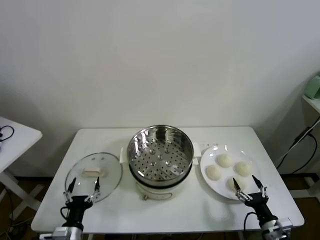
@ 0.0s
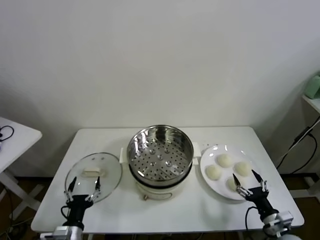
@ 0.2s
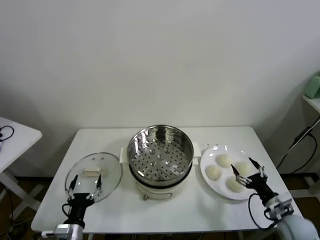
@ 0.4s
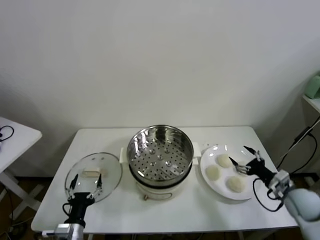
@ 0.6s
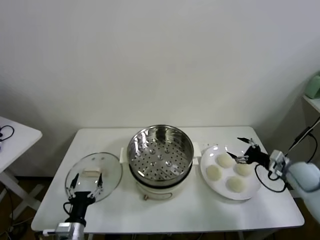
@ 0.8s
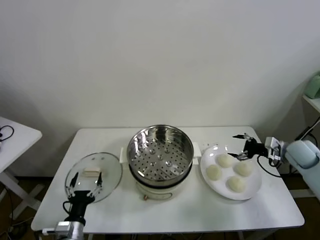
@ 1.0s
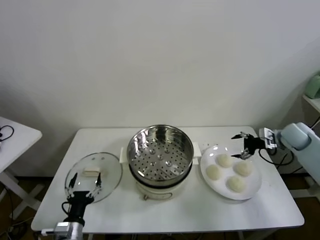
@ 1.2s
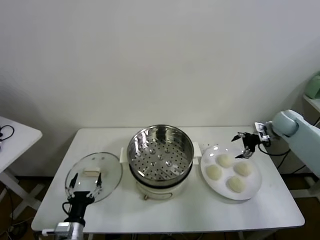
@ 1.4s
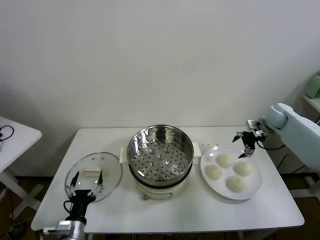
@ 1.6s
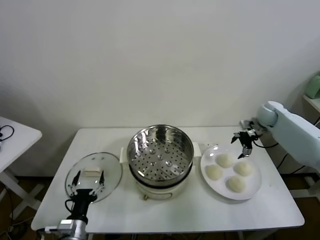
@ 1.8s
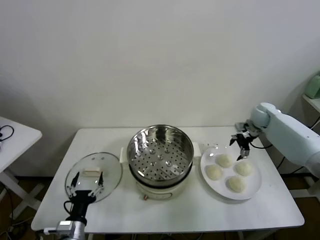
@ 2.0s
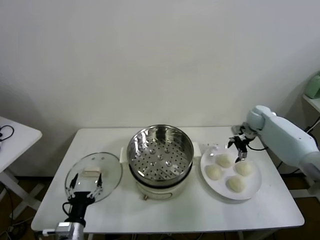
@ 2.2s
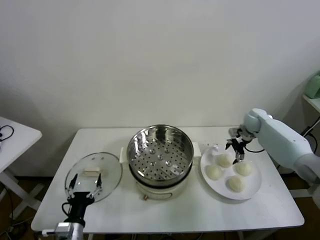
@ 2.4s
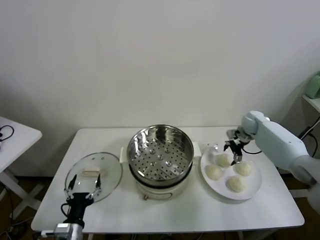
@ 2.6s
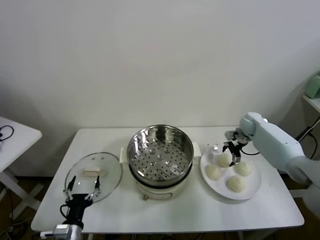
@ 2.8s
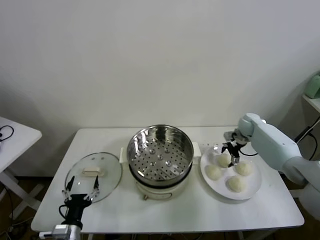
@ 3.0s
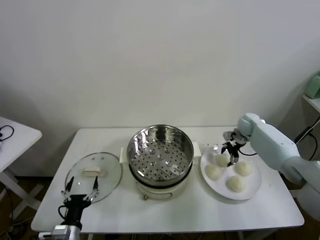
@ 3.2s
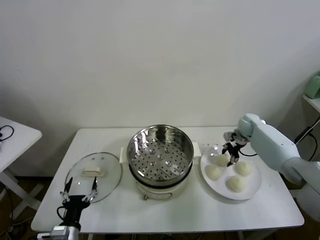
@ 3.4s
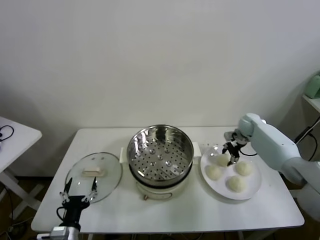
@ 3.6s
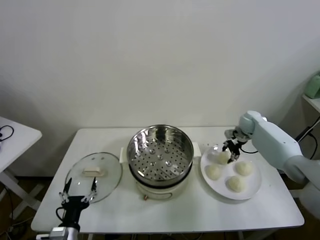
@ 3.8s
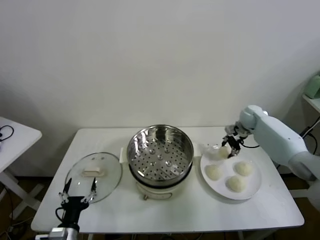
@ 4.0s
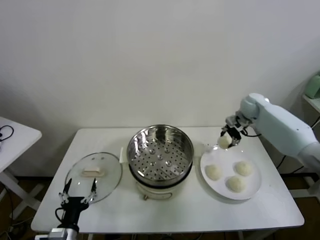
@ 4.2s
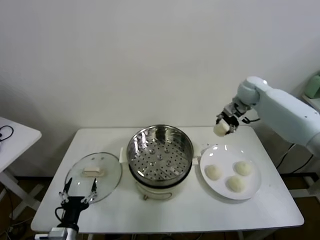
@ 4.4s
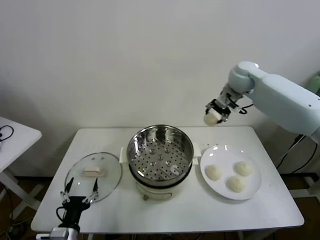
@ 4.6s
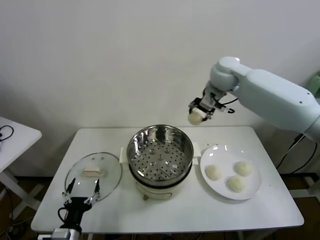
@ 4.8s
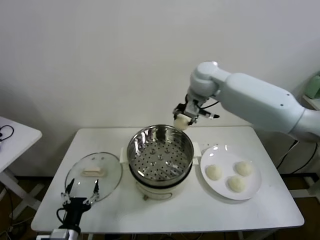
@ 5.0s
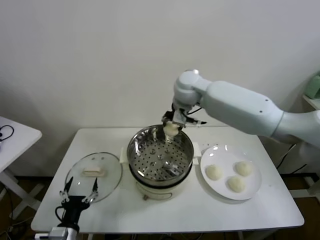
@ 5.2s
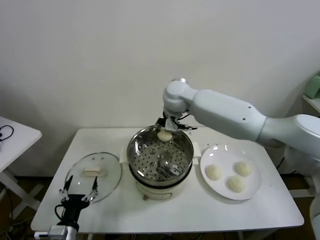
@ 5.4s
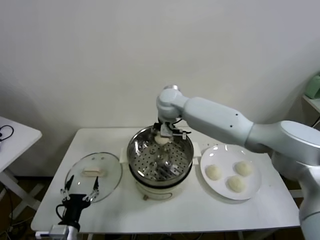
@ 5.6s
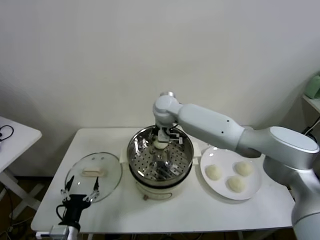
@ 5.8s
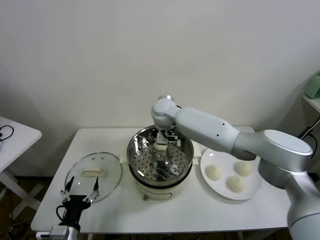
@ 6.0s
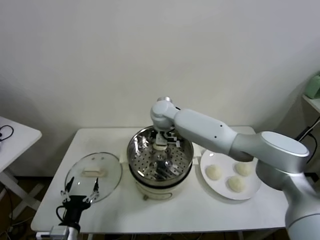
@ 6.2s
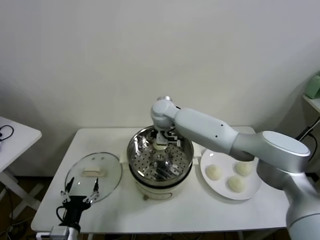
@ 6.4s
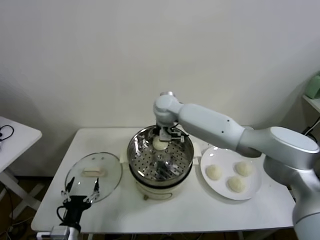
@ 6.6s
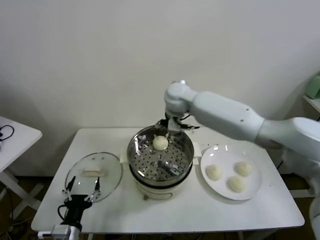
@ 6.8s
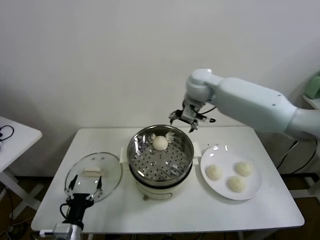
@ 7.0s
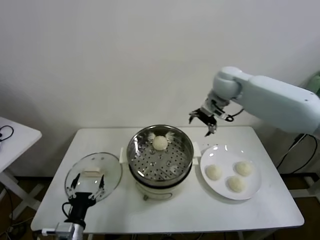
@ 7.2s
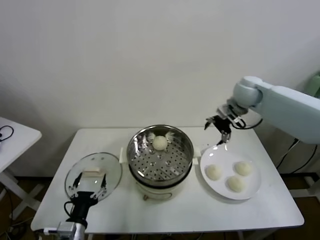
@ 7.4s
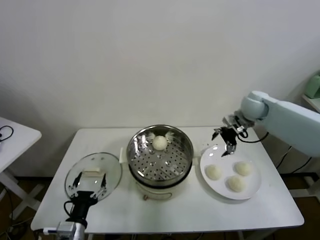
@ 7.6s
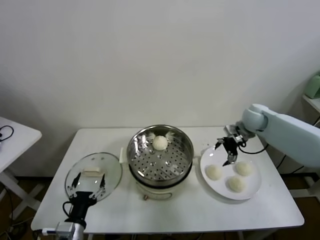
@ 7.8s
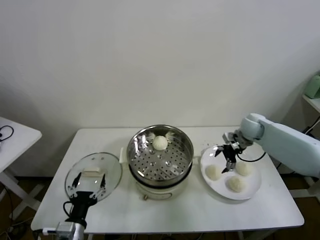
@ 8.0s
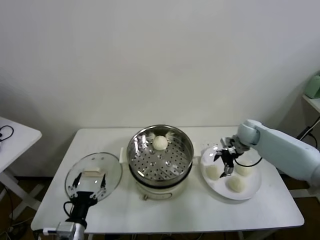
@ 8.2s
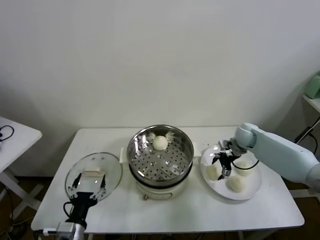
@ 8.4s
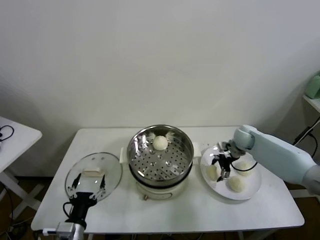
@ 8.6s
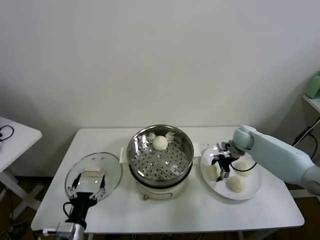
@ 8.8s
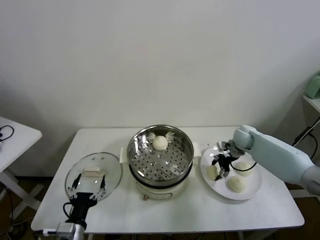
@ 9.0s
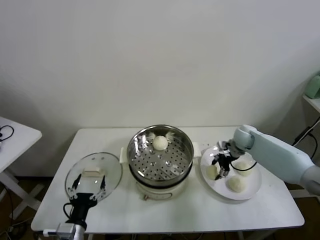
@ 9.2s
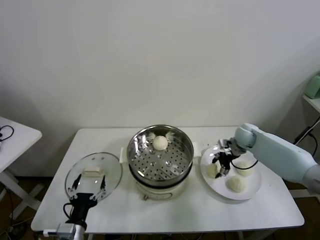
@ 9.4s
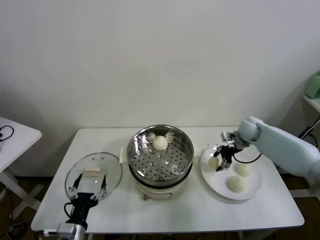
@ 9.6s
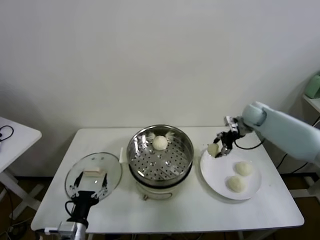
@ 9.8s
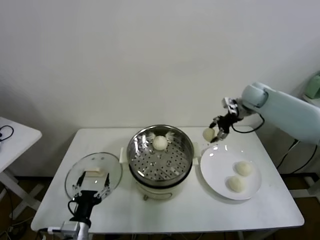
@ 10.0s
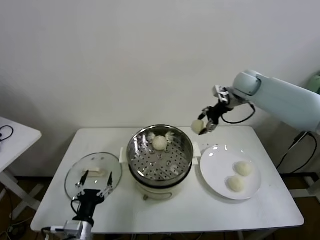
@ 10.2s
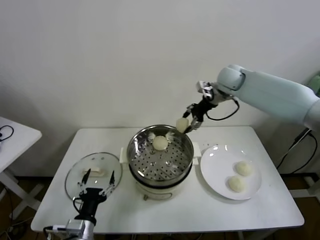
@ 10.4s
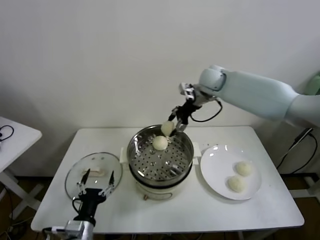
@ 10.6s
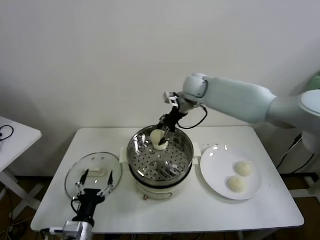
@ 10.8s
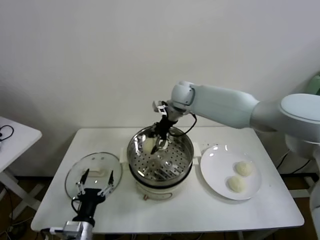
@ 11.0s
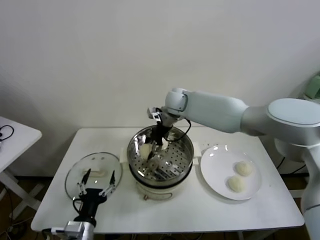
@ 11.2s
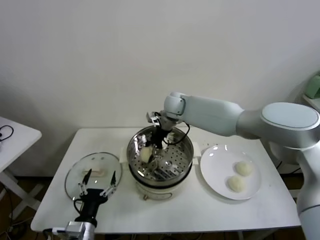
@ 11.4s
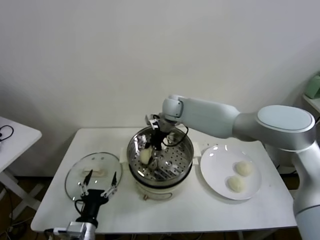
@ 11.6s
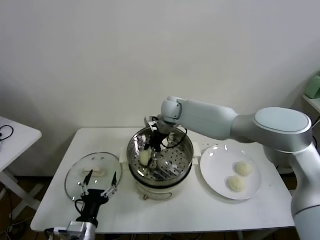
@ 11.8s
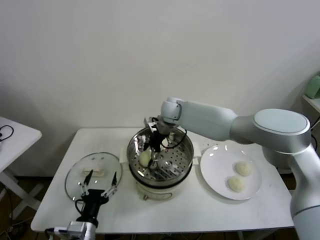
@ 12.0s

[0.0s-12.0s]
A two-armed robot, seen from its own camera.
Task of the whole recording: take steamed baozi put them in steamer.
Step, 0.0s to 3.2s: Grasp the baozi in the plate with right gripper.
Step, 3.4s to 6.2s: Place the baozi on the steamer with right gripper.
Step, 6.6s to 8.8s: Grasp the baozi in the plate with right gripper.
1.6s to 3.0s: The right gripper shifts roughly 10 cm downward and to the left.
3.0s to 4.4s: The right gripper shifts approximately 20 cm upward, and closes up.
4.4s to 6.0s: The right gripper is displaced to the left by approximately 30 cm.
6.0s to 7.6s: The right gripper moves to the right, roughly 35 cm, and opens.
7.6s to 9.0s: The right gripper heads downward, covering roughly 15 cm, and closes its fingers.
9.0s to 10.4s: The right gripper heads upward and to the left, covering about 25 cm.
10.4s to 12.0s: The right gripper shifts about 20 cm to the left and downward, and opens.

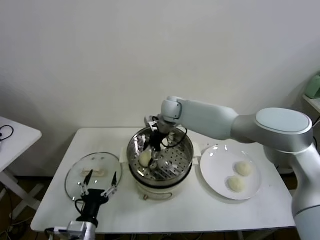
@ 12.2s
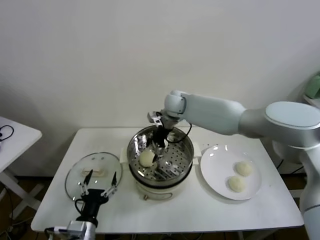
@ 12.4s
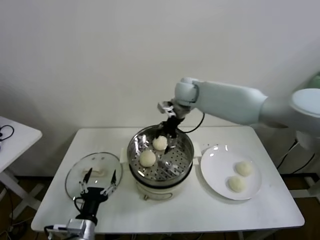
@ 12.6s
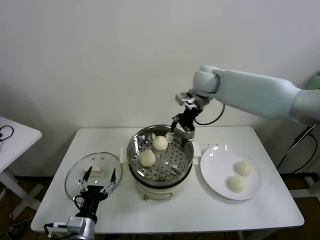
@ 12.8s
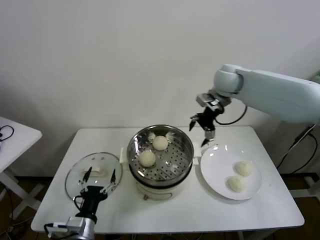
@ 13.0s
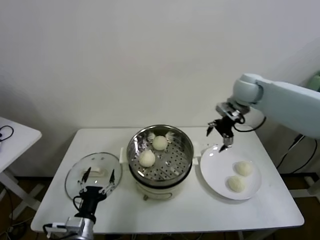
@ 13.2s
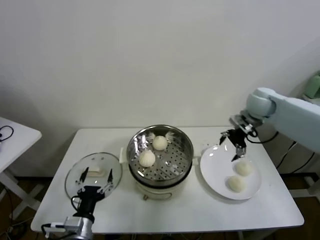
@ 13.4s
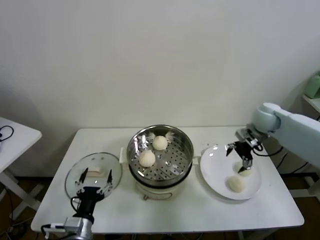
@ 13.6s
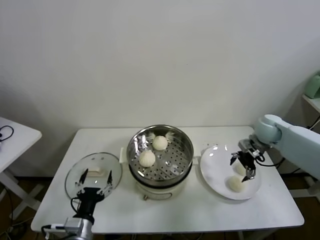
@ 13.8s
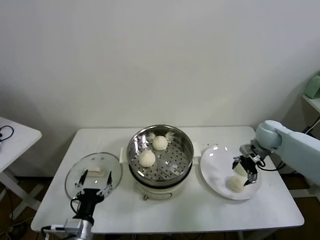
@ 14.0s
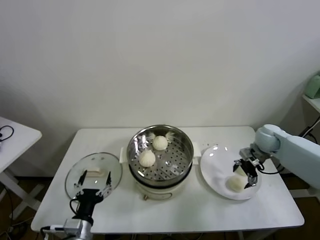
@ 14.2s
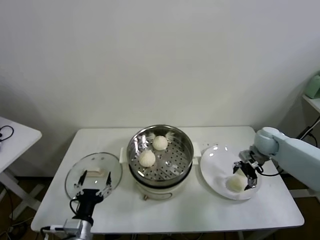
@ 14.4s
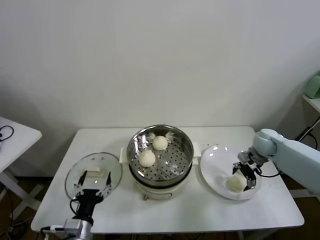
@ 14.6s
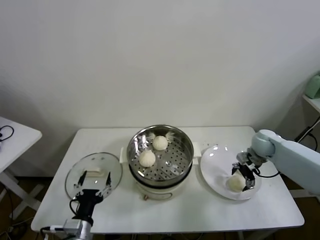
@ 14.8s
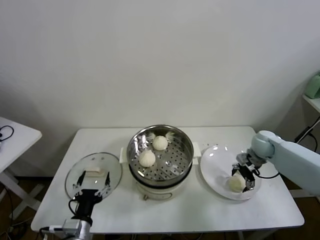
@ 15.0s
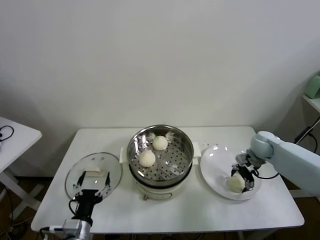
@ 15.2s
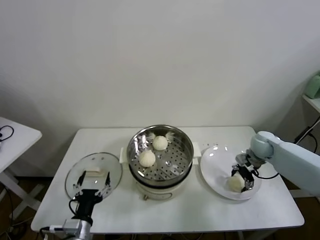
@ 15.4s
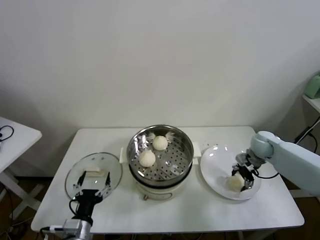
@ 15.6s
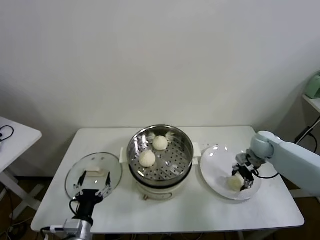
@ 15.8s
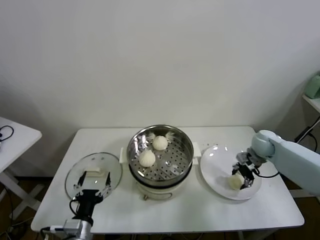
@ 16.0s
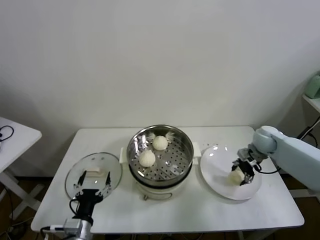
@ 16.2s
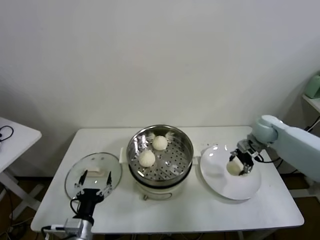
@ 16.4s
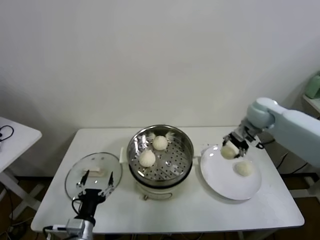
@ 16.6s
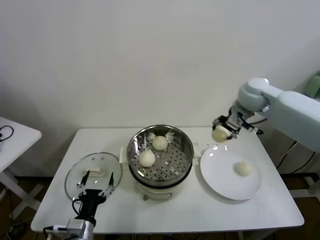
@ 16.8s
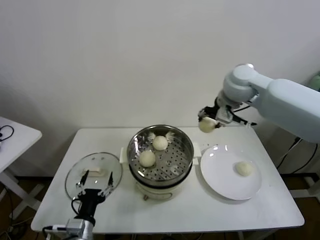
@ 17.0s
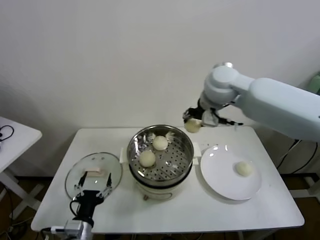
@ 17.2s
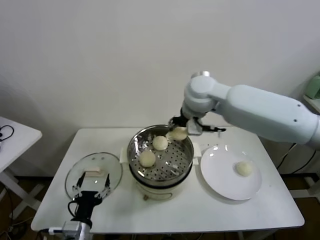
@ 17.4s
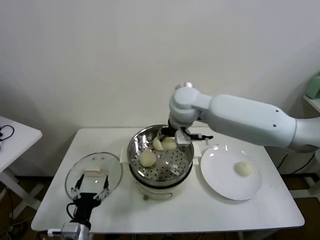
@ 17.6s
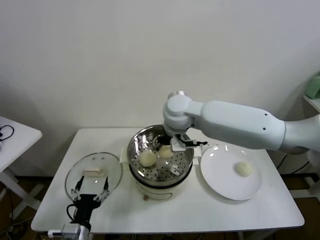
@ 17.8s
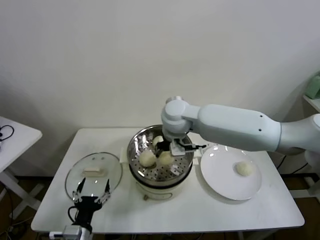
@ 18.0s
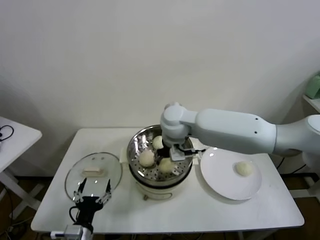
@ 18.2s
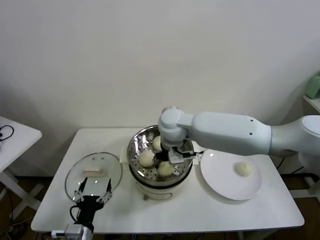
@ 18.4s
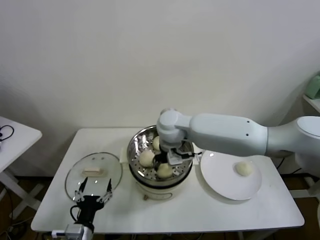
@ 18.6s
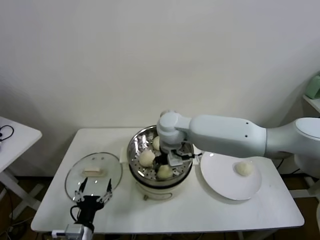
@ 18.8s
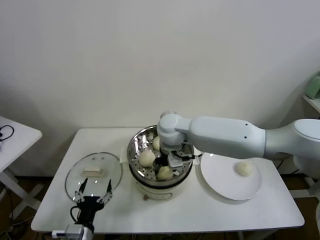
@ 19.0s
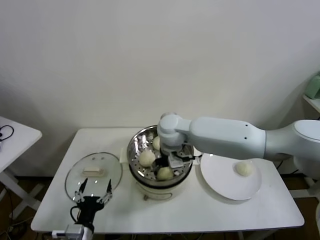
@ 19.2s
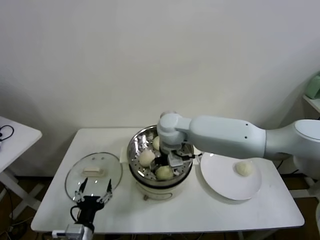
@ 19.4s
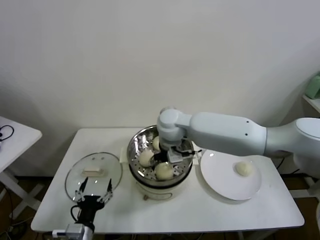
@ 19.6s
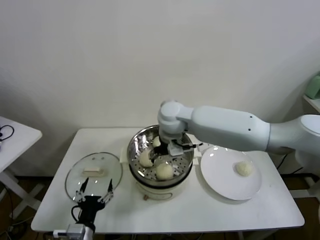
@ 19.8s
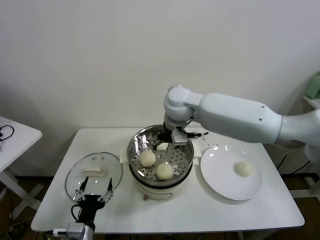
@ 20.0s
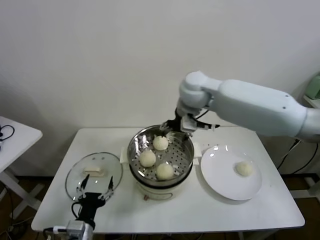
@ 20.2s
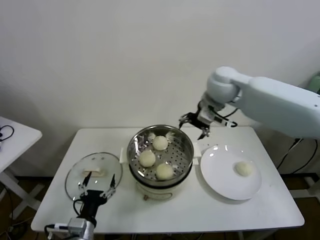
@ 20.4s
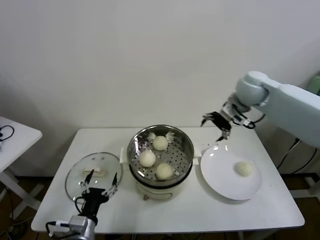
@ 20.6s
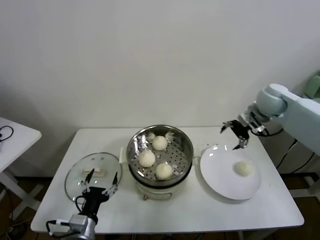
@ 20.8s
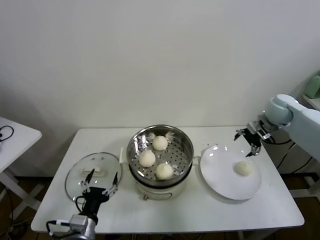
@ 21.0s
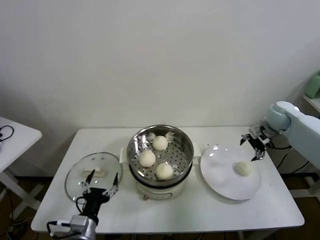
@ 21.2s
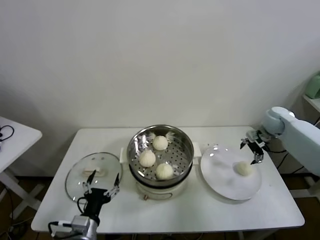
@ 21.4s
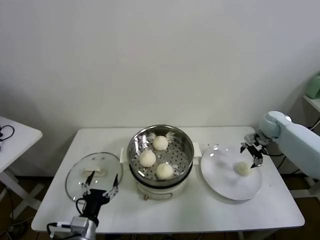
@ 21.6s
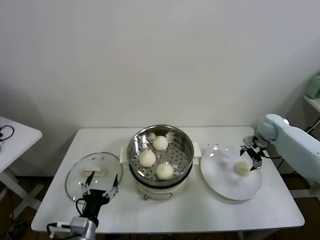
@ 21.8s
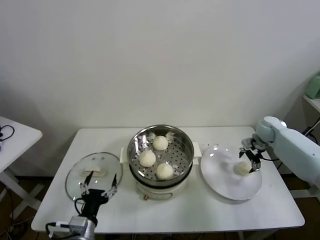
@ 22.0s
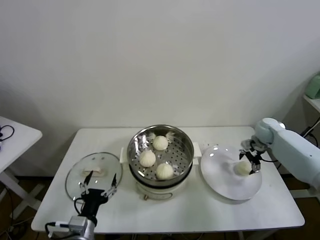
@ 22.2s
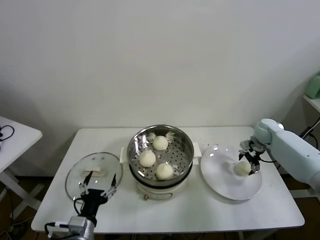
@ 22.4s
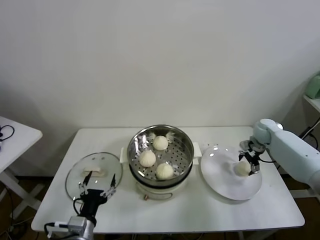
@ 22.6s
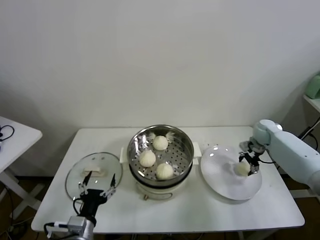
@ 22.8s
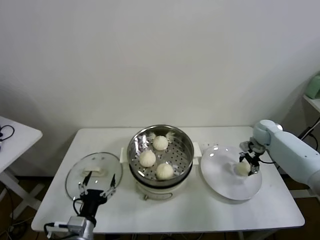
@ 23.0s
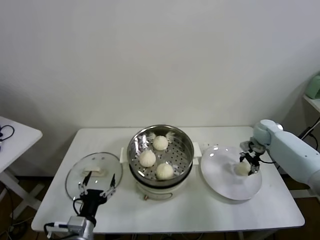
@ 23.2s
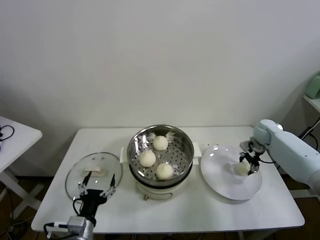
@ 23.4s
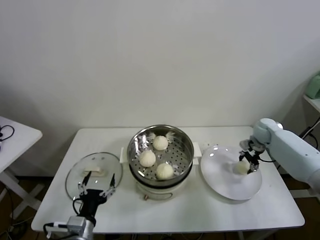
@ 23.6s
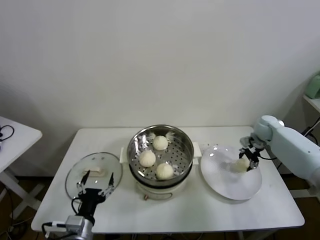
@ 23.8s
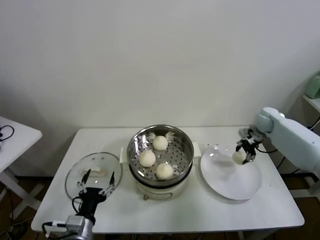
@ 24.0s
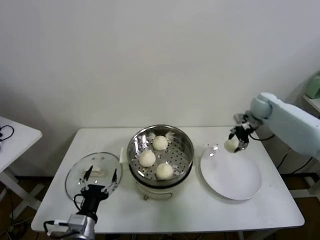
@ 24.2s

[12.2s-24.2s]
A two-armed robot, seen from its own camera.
Task of the whole recording: take steamed baozi put them in steamer.
Step, 12.4s to 15.4s: Grasp the baozi in the plate with right gripper.
Step, 15.8s to 19.2s: Place the baozi on the steamer with right gripper.
Step, 19.4s to 23.0s: Grasp the baozi in the plate with right gripper.
12.2s to 13.8s: The right gripper heads to the right, covering some 35 cm.
13.8s to 15.2s: The right gripper goes some 5 cm downward.
15.2s to 16.6s: The right gripper shifts roughly 15 cm upward, and closes up.
16.6s to 18.2s: The right gripper travels to the left by roughly 30 cm.
18.2s to 19.8s: The right gripper opens up.
19.8s to 21.2s: The right gripper moves to the right, about 40 cm.
21.2s to 22.6s: The right gripper travels downward by roughly 10 cm.
22.6s to 24.2s: The right gripper shifts some 10 cm upward, and closes up.
